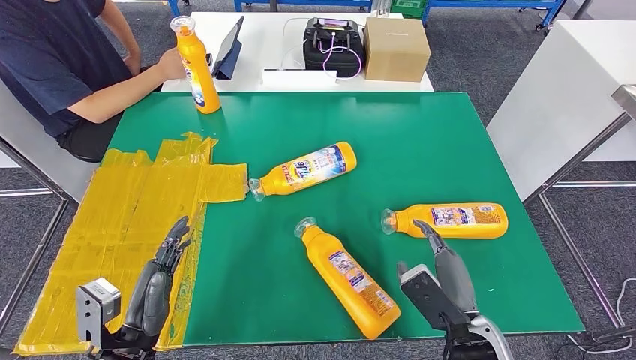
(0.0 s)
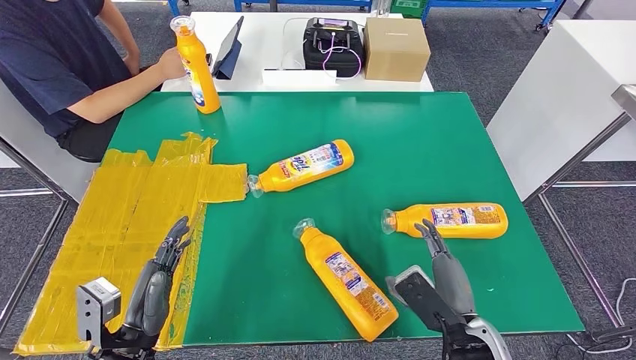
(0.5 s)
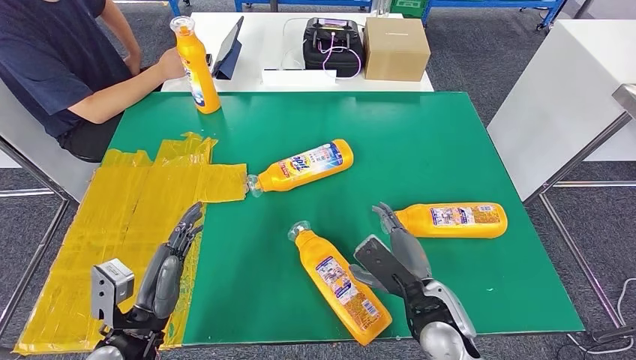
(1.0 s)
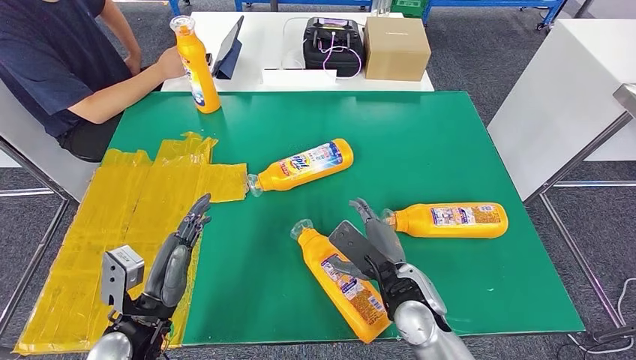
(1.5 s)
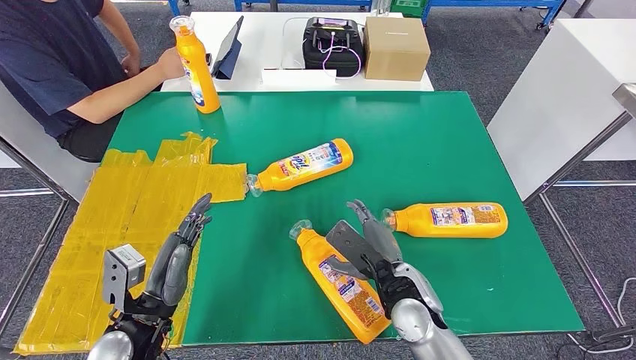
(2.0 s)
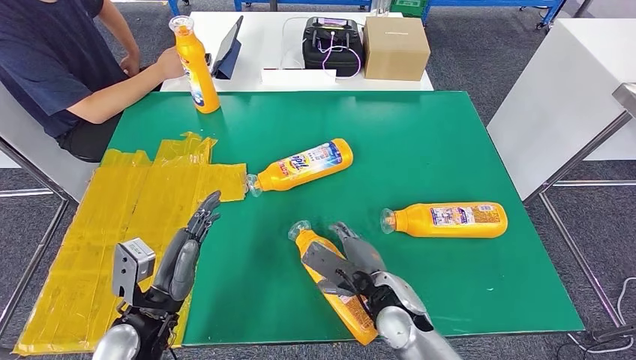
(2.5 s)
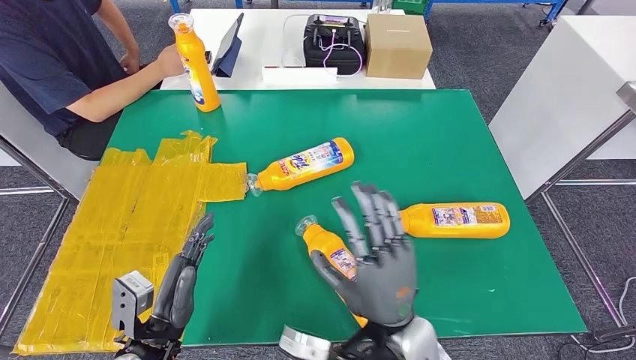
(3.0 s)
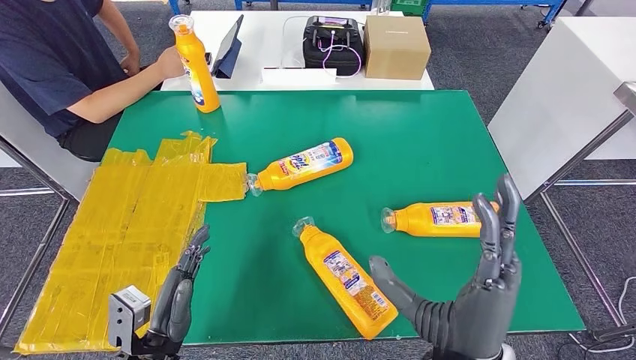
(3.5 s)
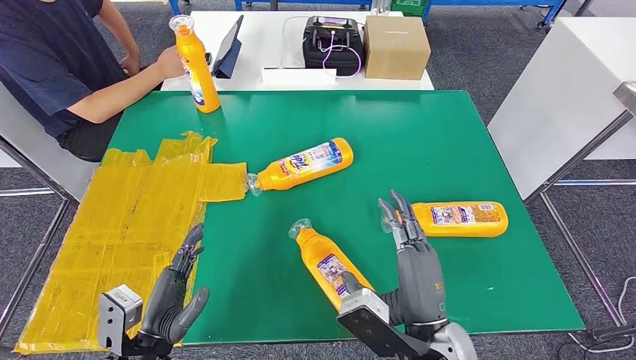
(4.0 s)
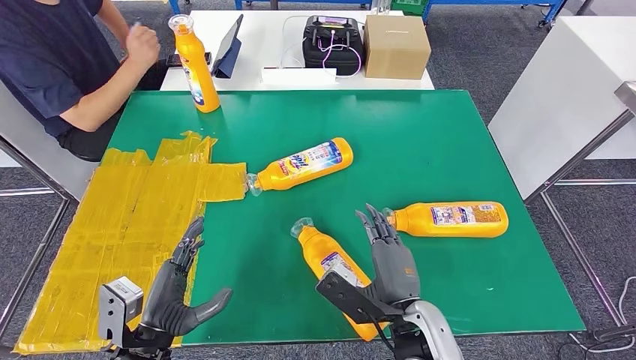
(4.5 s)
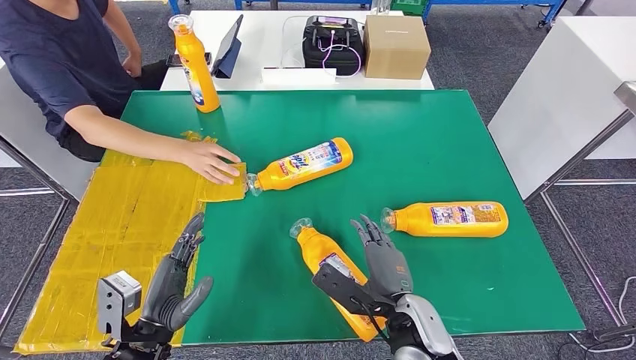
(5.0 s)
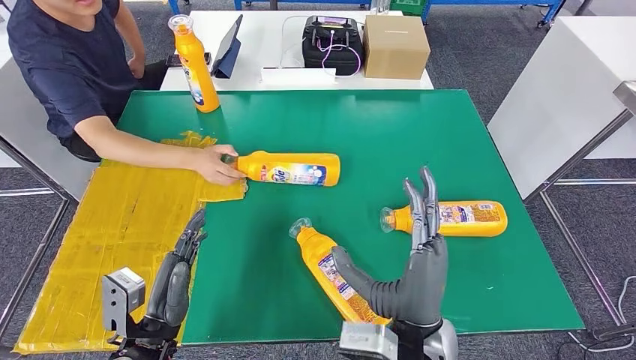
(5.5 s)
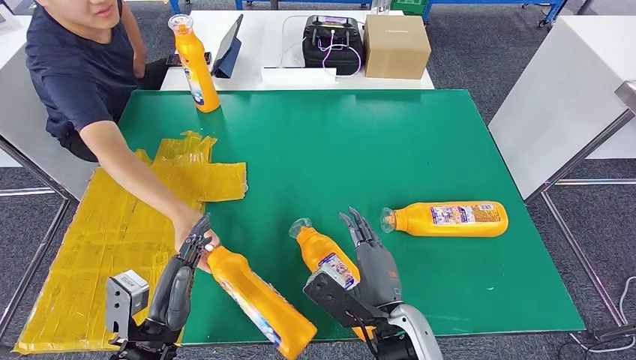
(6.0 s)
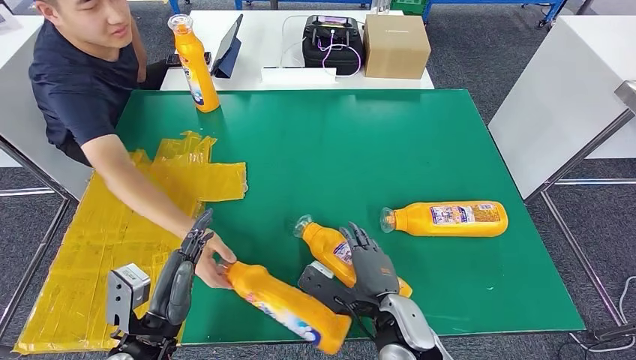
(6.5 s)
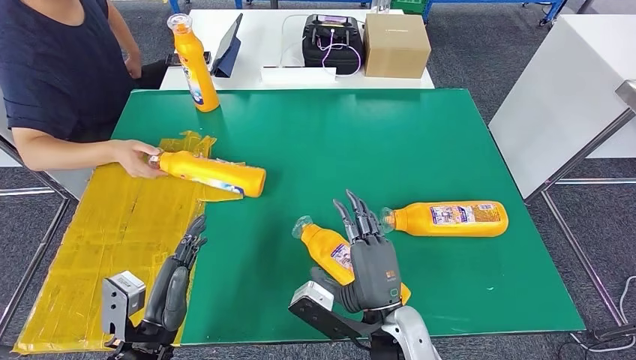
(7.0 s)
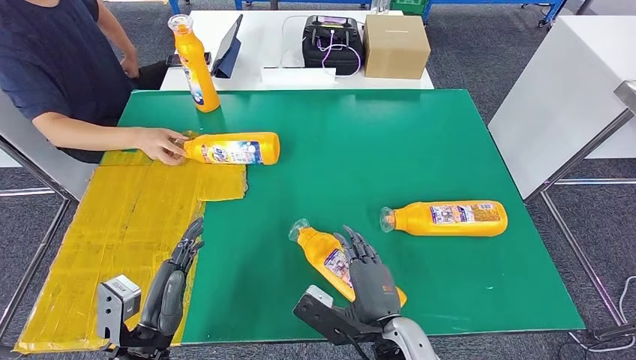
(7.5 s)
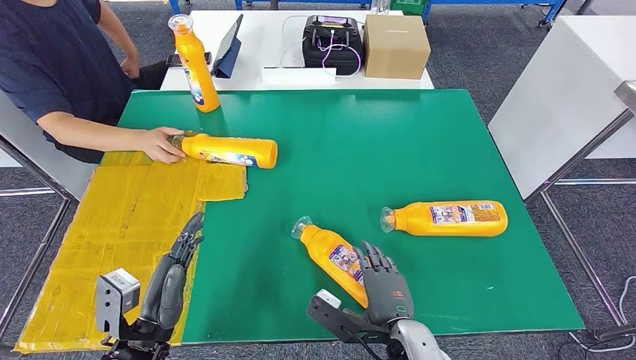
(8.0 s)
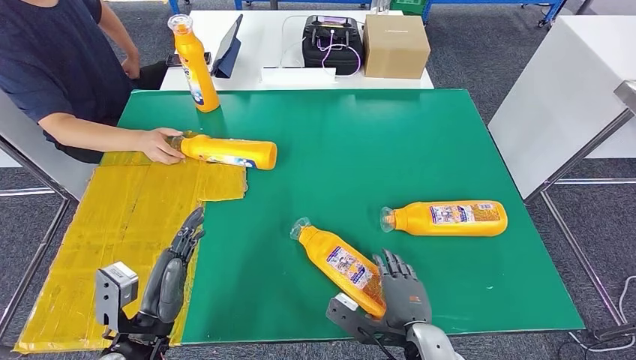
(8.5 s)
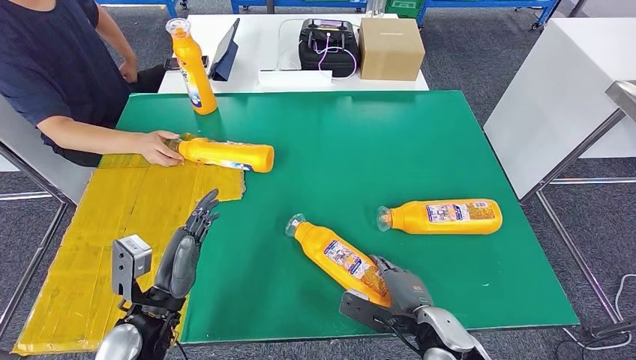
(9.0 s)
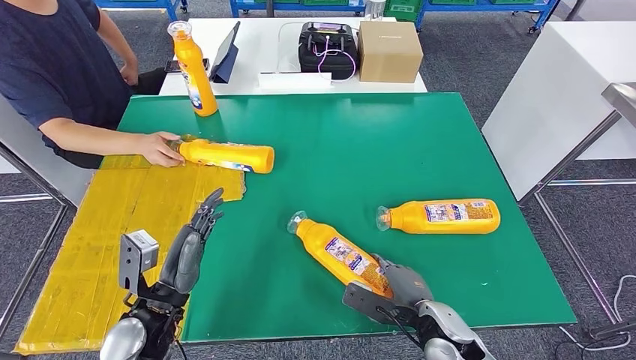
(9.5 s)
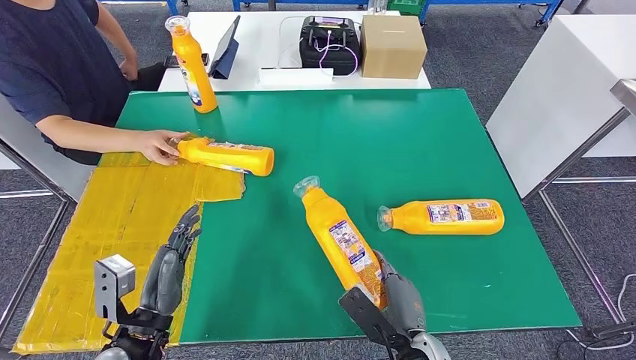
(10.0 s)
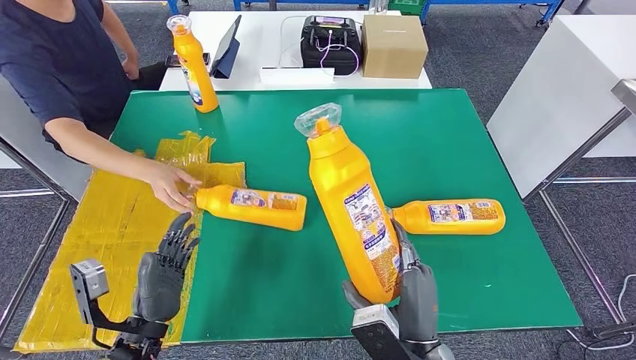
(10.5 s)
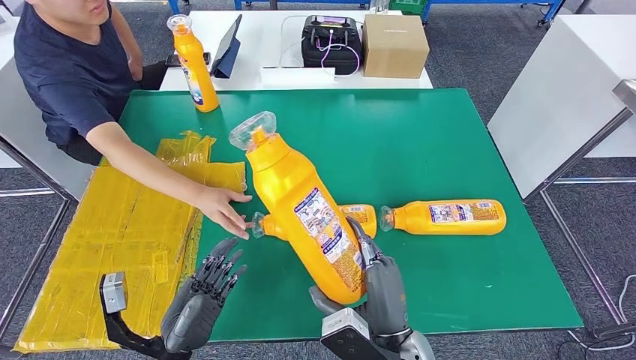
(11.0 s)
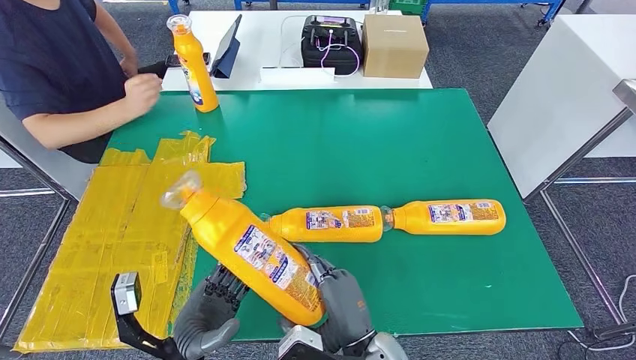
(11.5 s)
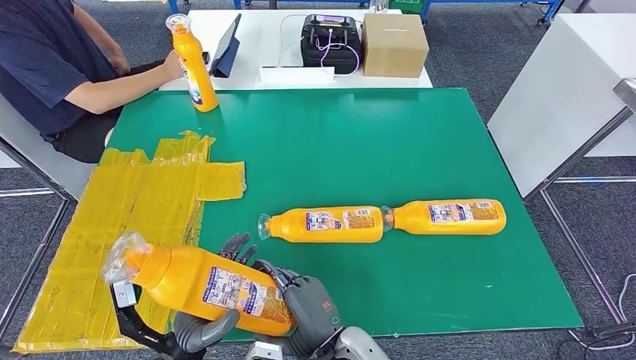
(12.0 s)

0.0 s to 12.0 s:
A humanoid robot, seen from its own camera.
Step, 0.0 to 11.5 s: Pick up the fast-moving consumer goods bottle from the table.
0.0 to 2.0 s: The right hand goes roughly 10 cm to the left and forward.
2.0 to 4.0 s: The left hand is displaced backward by roughly 5 cm. The right hand is displaced backward and upward by about 15 cm.
6.0 to 8.0 s: The right hand shifts by roughly 5 cm.
8.0 to 10.0 s: The right hand travels to the right and back again, approximately 10 cm each way.

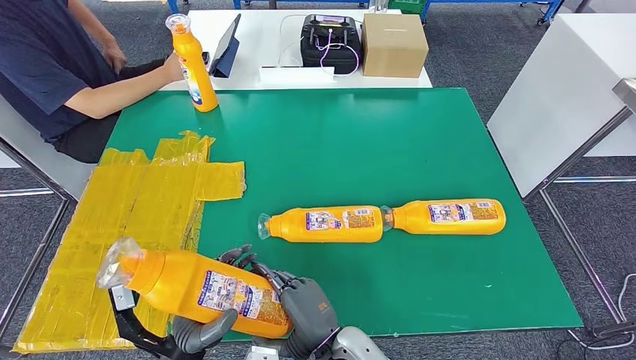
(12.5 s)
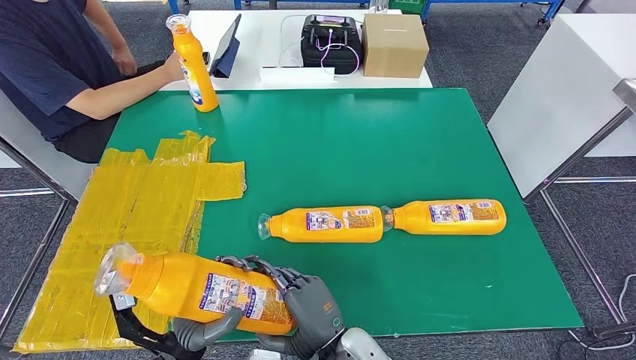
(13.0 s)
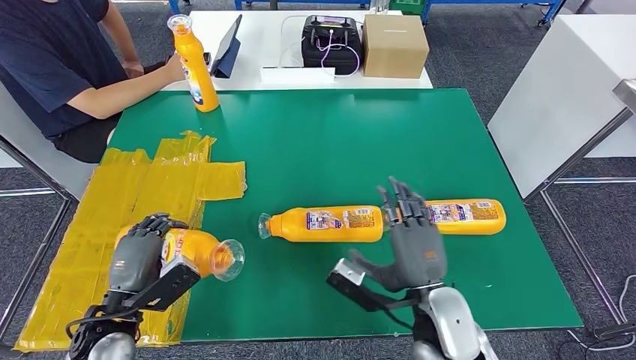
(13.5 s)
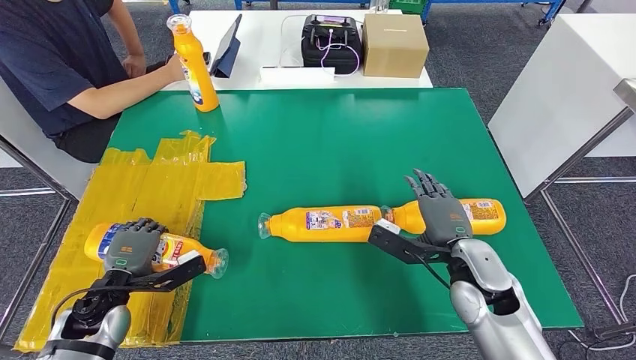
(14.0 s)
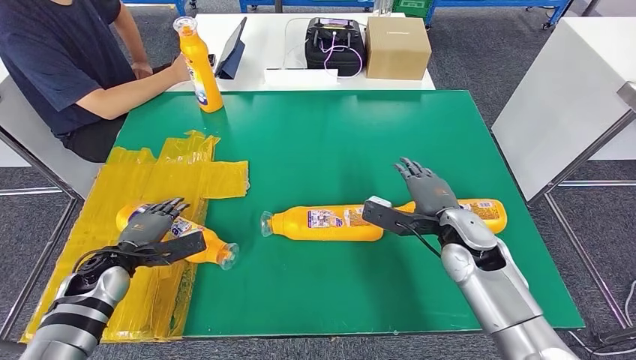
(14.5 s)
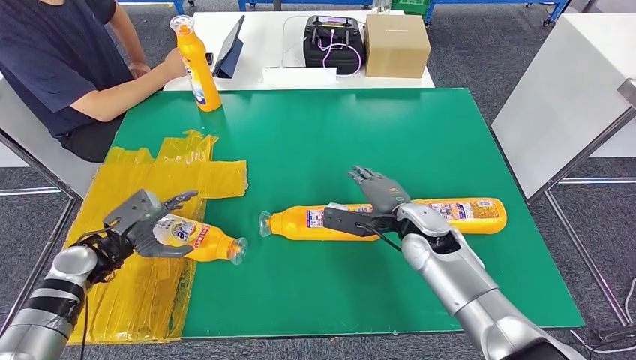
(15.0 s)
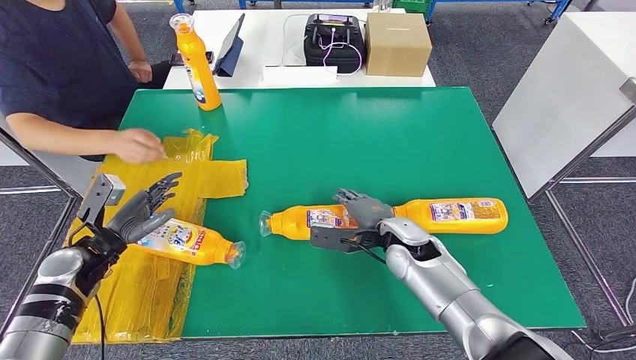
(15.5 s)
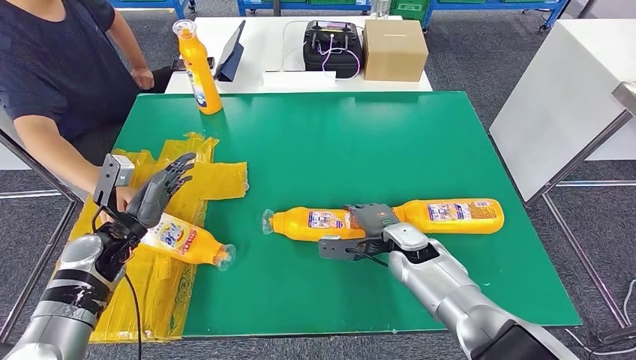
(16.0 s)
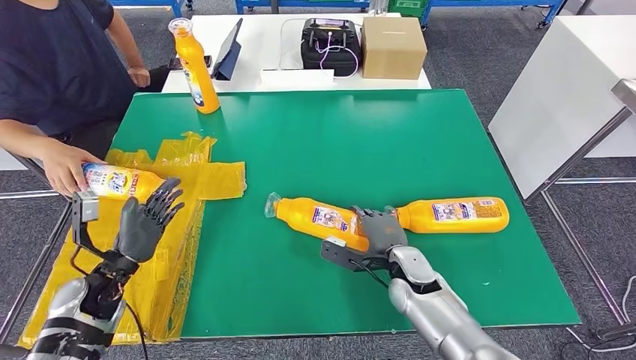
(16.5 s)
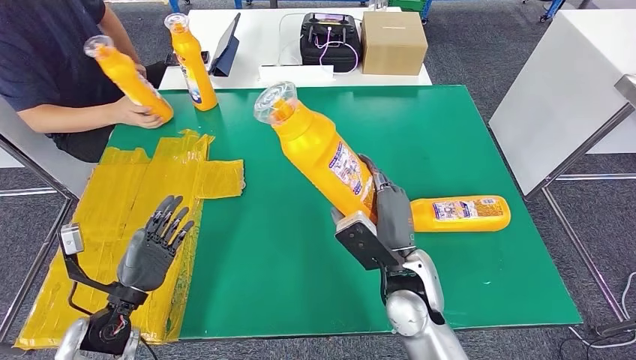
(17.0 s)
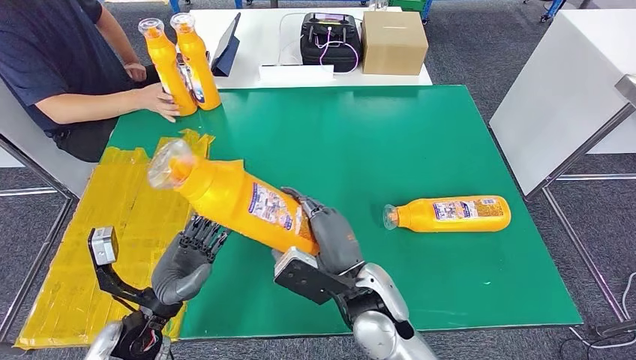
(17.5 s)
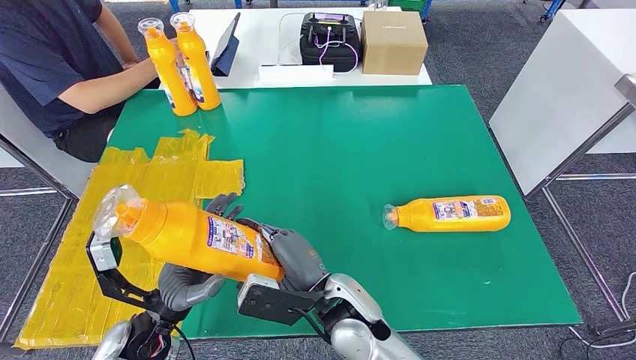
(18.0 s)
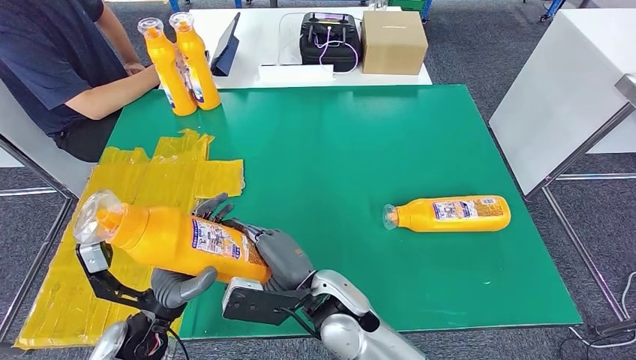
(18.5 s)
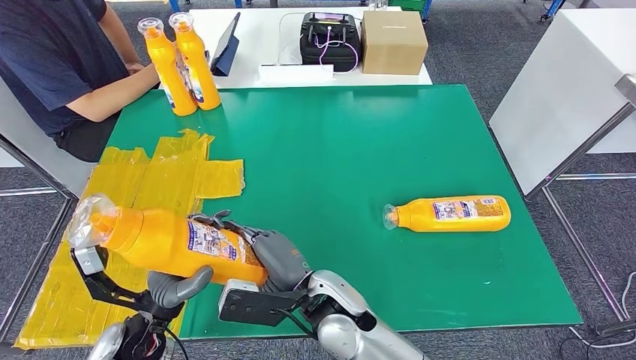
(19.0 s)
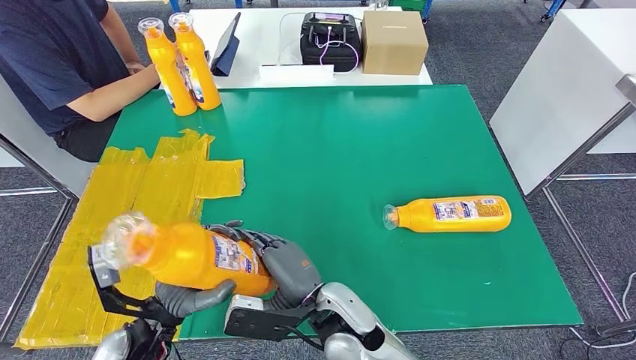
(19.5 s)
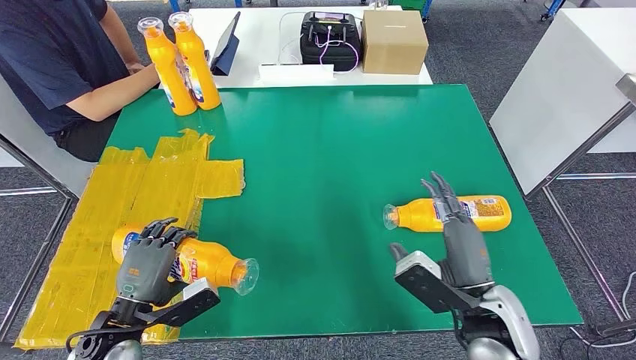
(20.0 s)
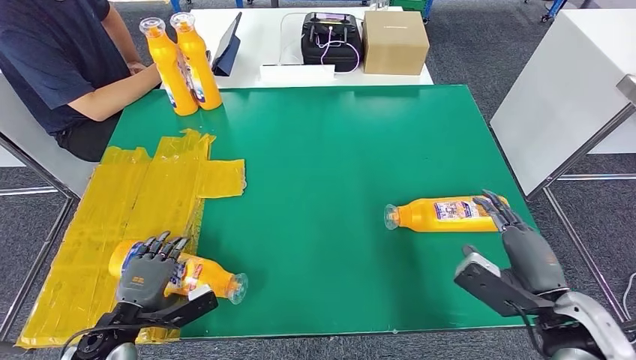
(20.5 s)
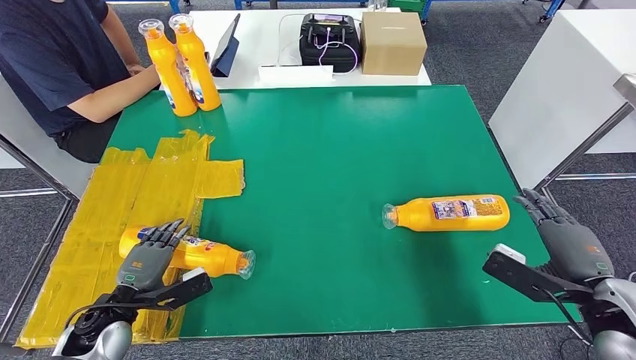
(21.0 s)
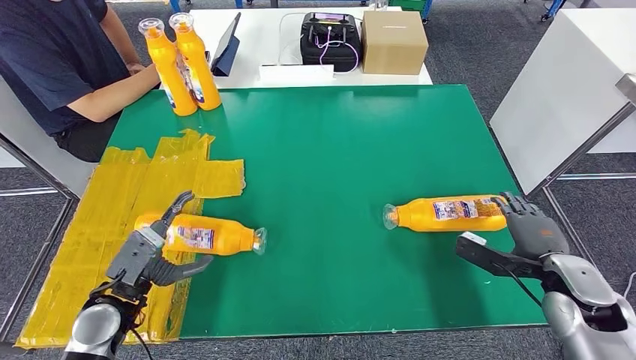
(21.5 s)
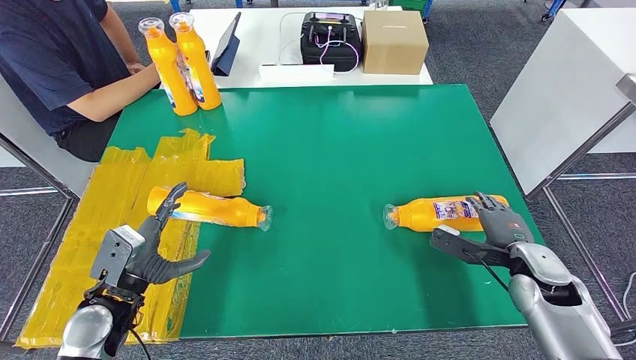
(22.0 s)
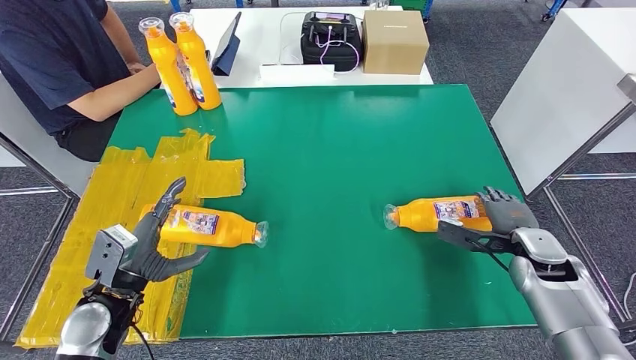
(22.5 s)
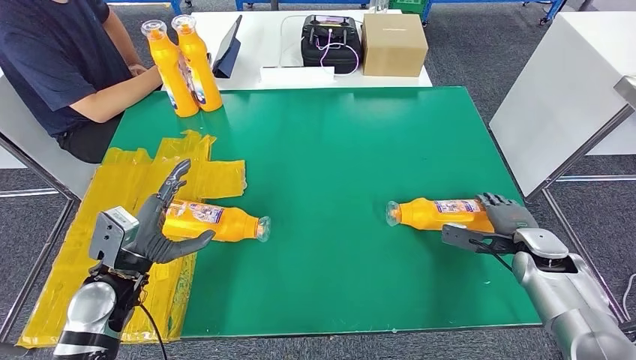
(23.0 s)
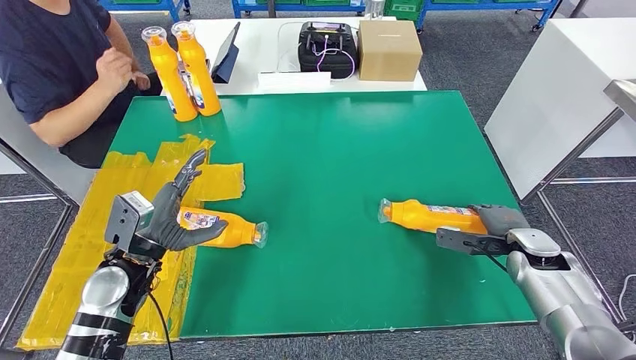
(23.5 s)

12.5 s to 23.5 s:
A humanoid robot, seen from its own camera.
Step, 12.5 to 14.5 s: Flip the fast-moving consumer goods bottle to the front side.
Step, 17.0 to 19.0 s: Pick up the fast-moving consumer goods bottle from the table.
Step, 19.5 to 22.5 s: Flip the fast-moving consumer goods bottle to the front side.
18.0 to 20.0 s: The left hand goes approximately 5 cm to the left, while the right hand heads to the right, covering approximately 20 cm.
20.0 to 21.5 s: The right hand moves to the right, approximately 15 cm.
